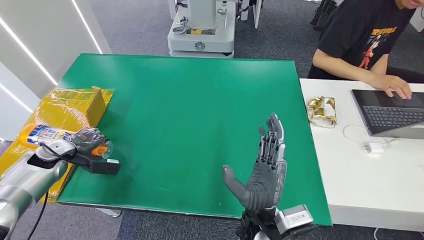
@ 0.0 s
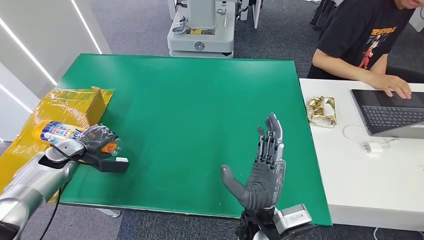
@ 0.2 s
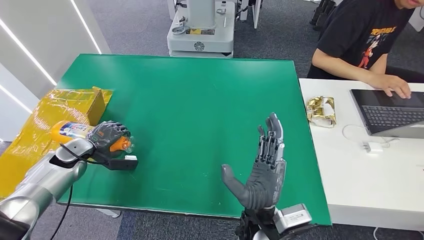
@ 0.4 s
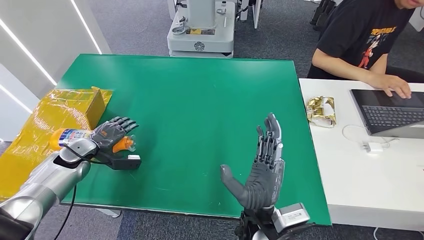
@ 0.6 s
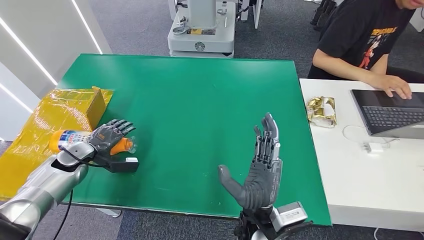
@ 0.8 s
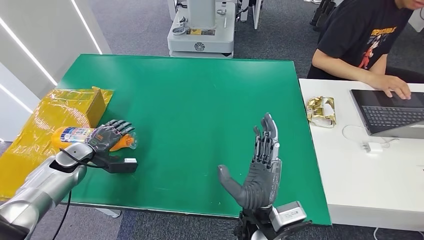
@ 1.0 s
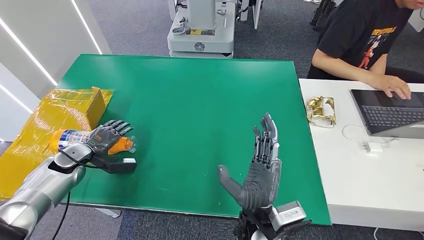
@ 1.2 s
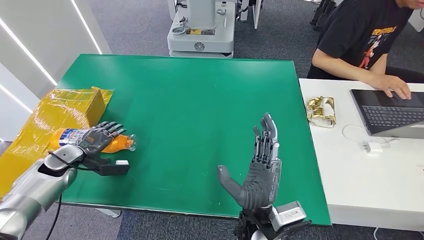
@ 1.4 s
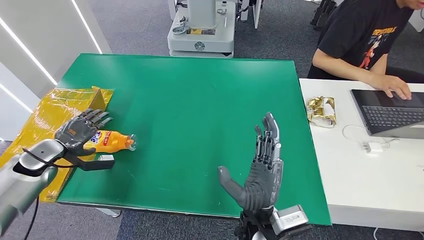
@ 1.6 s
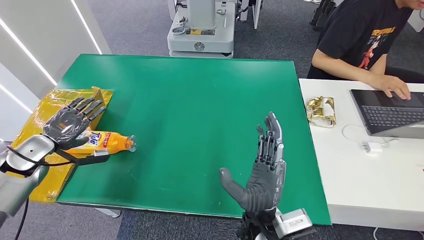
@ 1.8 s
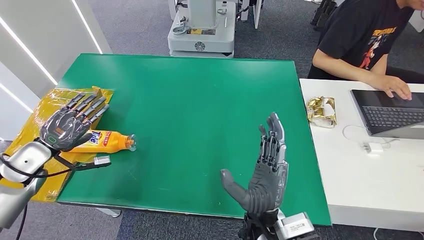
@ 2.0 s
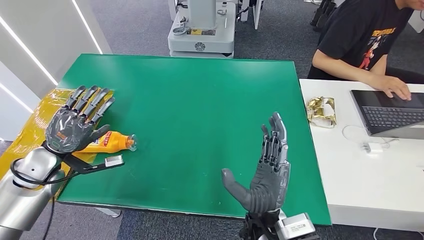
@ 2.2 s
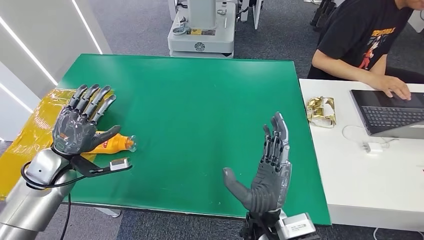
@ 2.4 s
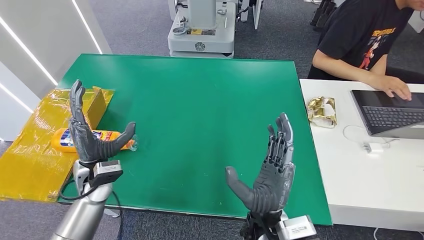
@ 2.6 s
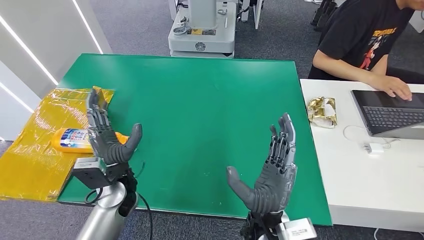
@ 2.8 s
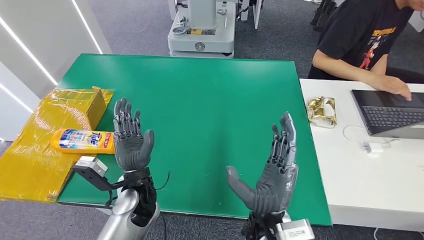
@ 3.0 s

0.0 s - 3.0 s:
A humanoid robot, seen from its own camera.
Step, 0.0 s - 3.0 s: Turn the bottle to the front side.
1.6 s - 3.0 s: The left hand is displaced to the right by approximately 30 cm.
